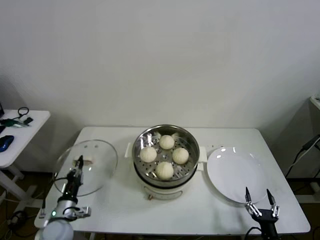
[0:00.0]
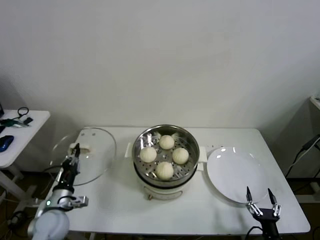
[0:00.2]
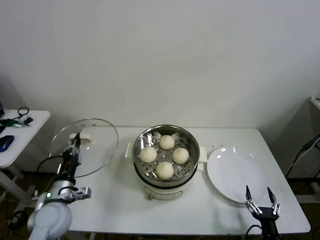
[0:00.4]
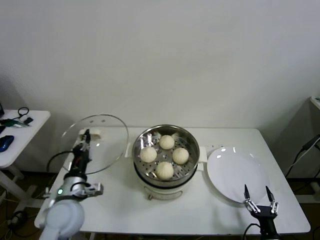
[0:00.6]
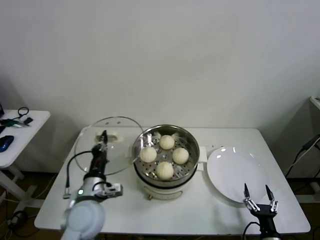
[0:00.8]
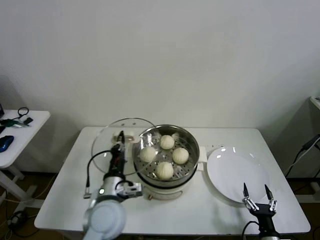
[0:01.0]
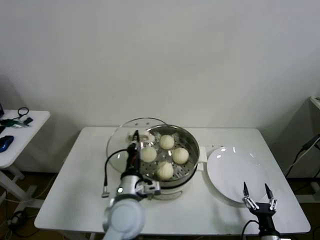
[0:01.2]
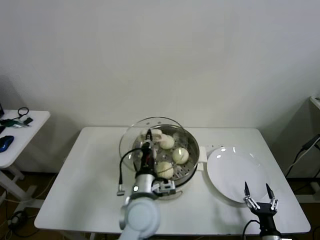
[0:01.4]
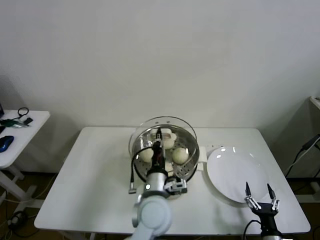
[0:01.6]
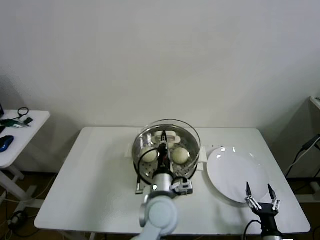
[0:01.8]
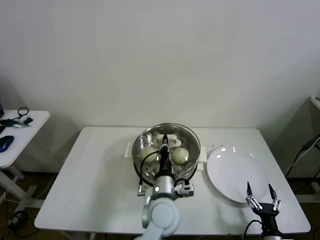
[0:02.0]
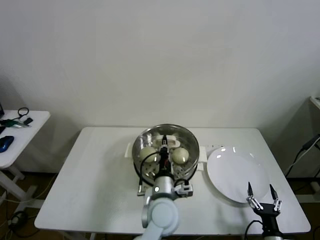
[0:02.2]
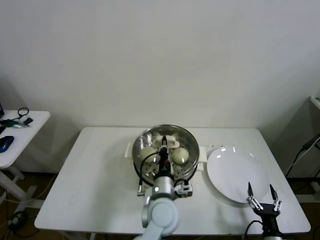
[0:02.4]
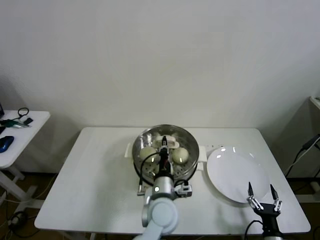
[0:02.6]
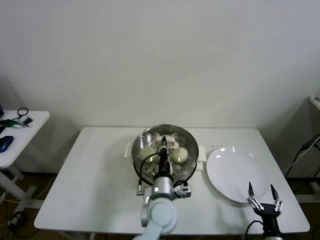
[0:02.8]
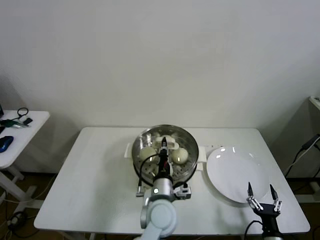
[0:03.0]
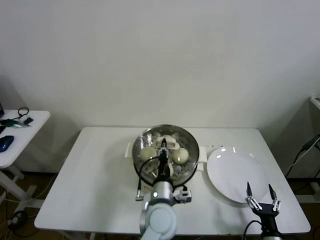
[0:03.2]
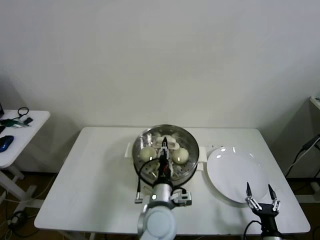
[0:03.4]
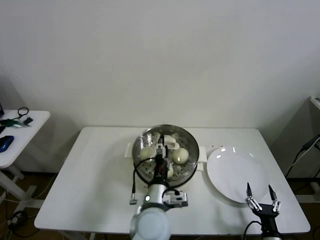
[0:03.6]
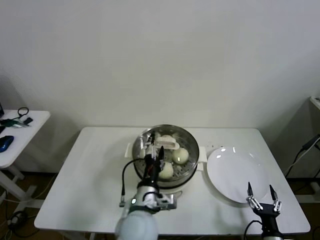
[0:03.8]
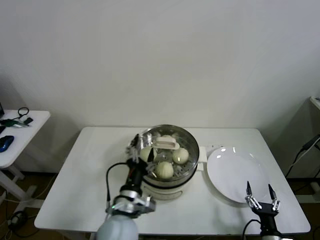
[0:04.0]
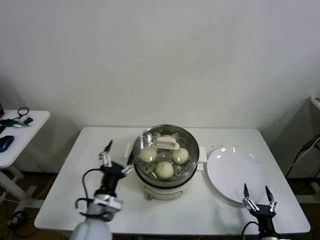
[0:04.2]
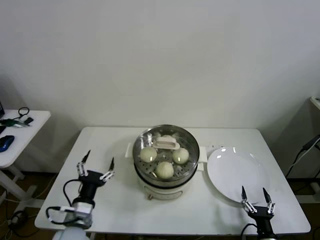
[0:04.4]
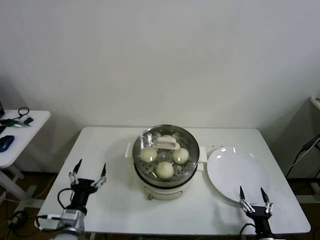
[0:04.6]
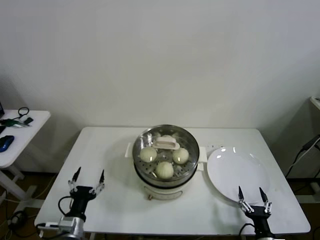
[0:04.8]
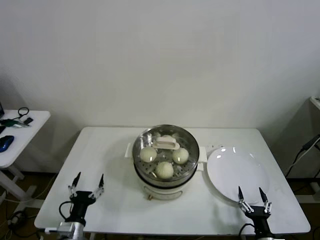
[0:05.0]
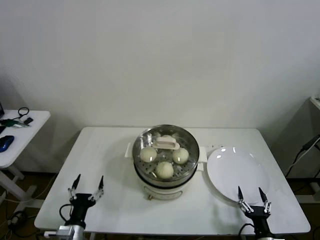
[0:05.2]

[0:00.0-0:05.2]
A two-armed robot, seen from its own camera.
Task of the whole recording: take steamed baozi put them in steamer then cover it.
Step, 0:00.0 to 0:03.6: Place the pot lid on the steamer with left gripper.
0:00.0 to 0:01.8: The left gripper travels to the right and upward by approximately 35 cm.
0:01.8 to 0:03.4: The left gripper opens.
0:03.4 to 0:05.2: The left gripper travels to the left by about 30 cm, and opens up.

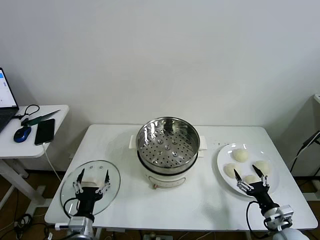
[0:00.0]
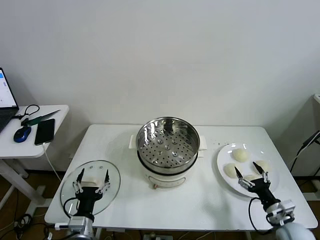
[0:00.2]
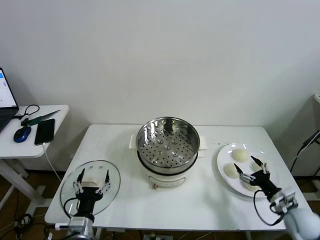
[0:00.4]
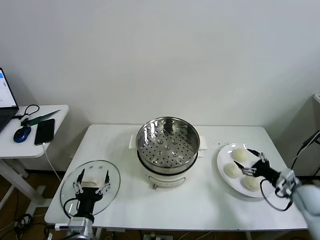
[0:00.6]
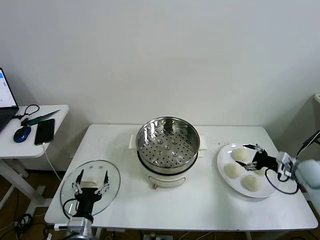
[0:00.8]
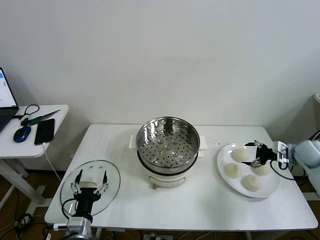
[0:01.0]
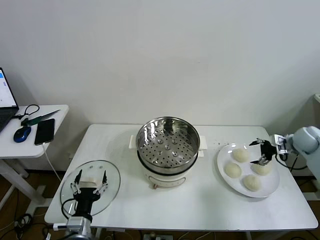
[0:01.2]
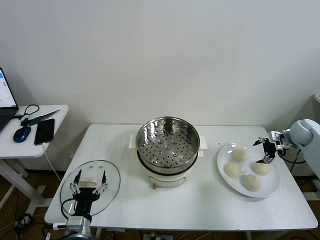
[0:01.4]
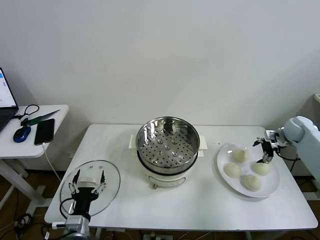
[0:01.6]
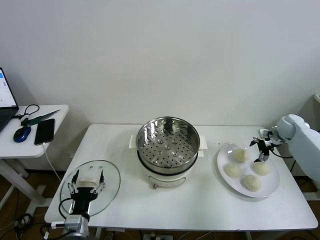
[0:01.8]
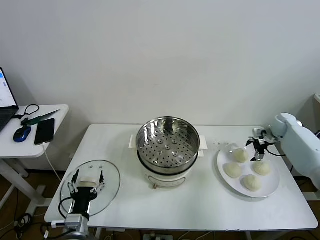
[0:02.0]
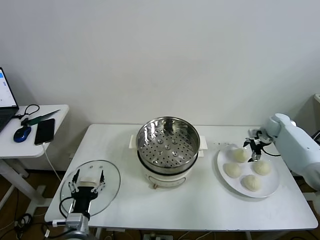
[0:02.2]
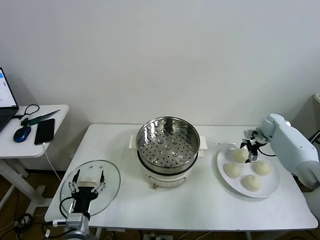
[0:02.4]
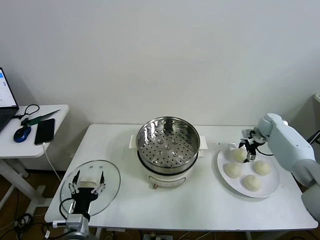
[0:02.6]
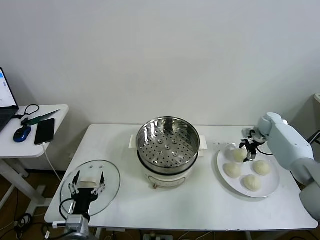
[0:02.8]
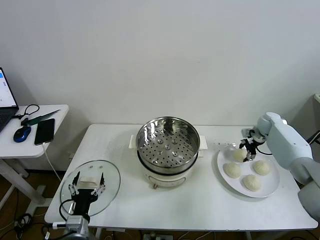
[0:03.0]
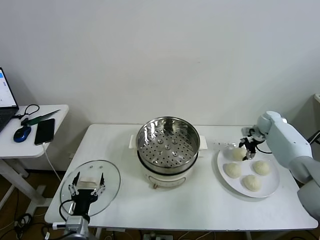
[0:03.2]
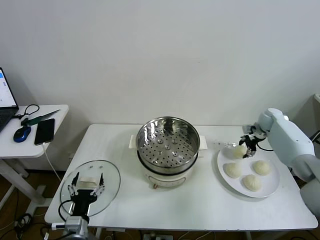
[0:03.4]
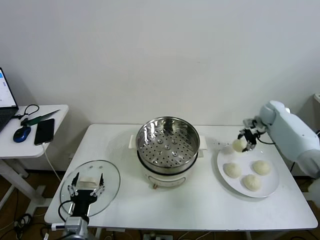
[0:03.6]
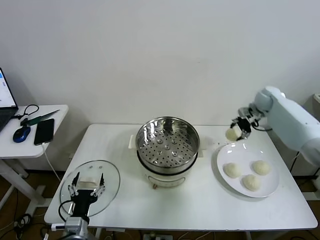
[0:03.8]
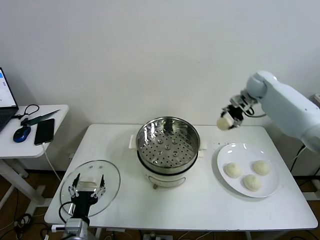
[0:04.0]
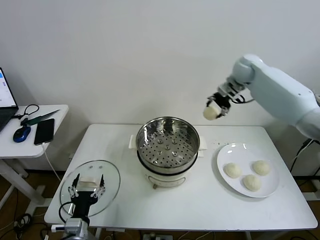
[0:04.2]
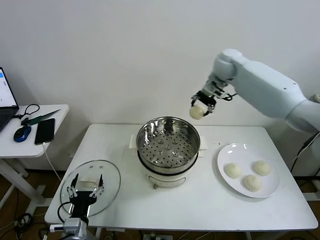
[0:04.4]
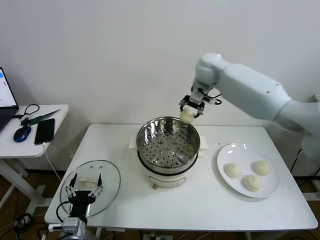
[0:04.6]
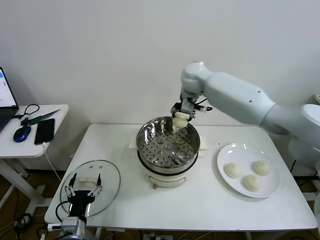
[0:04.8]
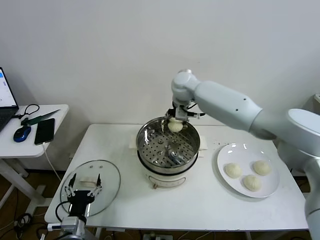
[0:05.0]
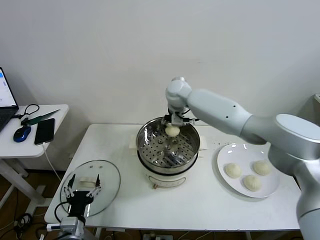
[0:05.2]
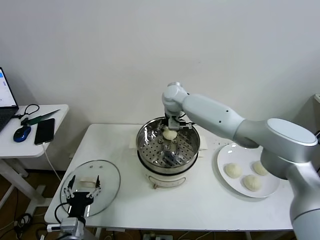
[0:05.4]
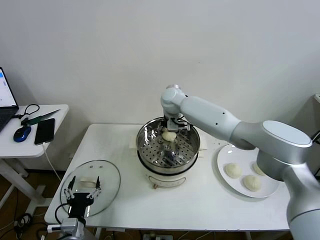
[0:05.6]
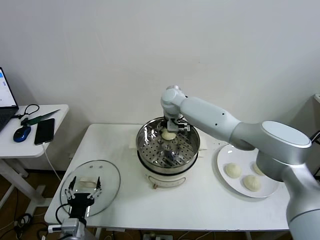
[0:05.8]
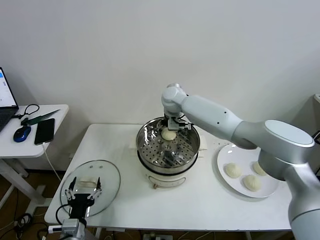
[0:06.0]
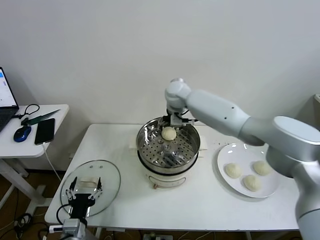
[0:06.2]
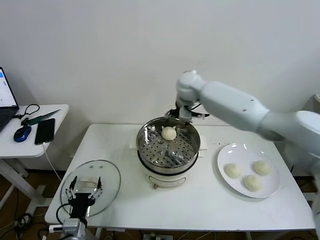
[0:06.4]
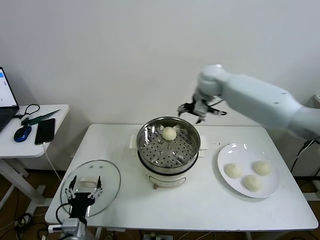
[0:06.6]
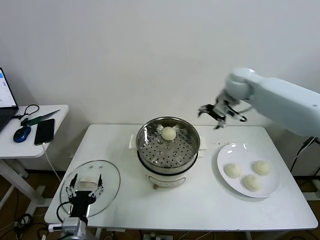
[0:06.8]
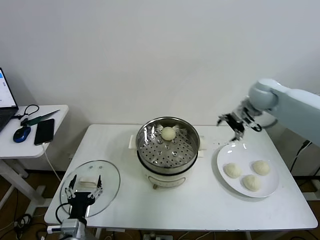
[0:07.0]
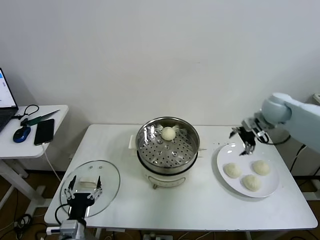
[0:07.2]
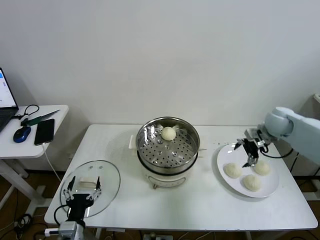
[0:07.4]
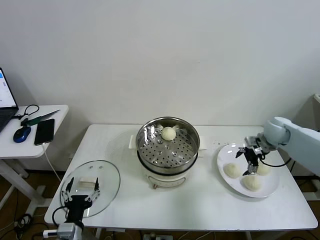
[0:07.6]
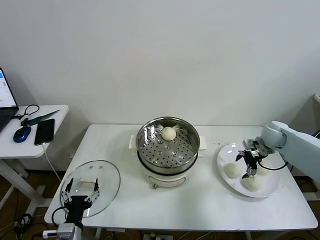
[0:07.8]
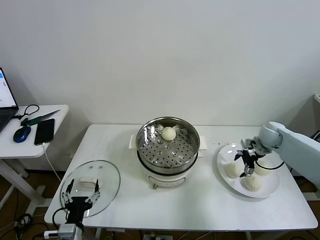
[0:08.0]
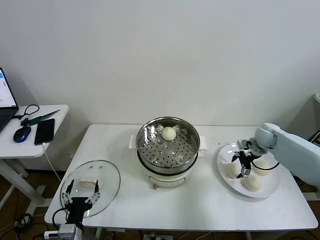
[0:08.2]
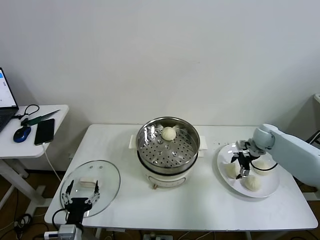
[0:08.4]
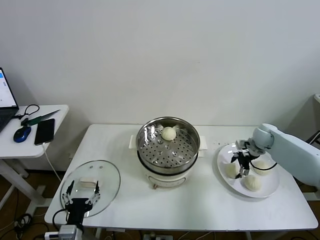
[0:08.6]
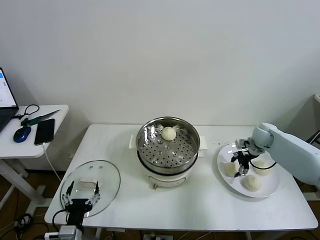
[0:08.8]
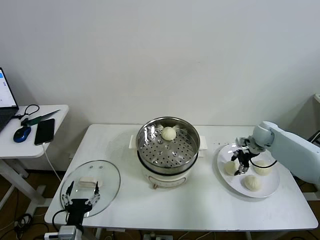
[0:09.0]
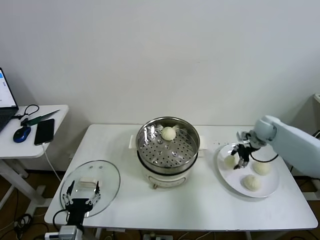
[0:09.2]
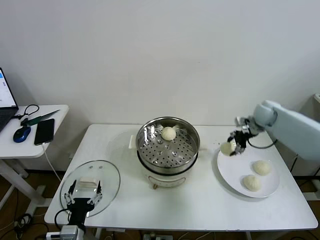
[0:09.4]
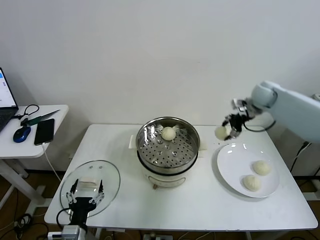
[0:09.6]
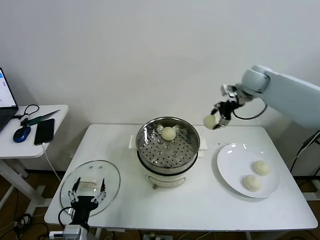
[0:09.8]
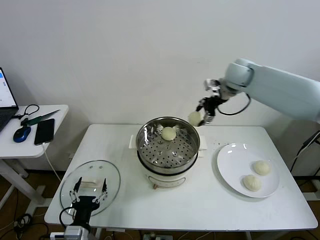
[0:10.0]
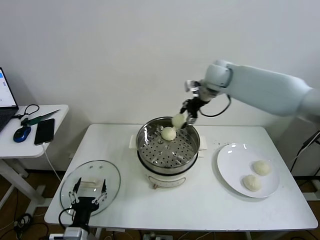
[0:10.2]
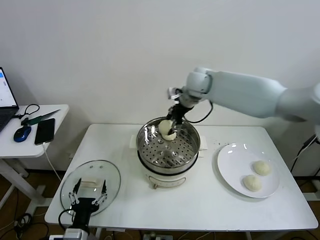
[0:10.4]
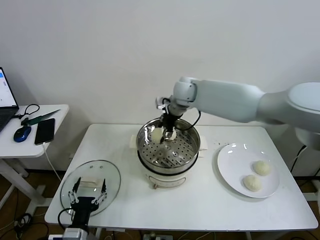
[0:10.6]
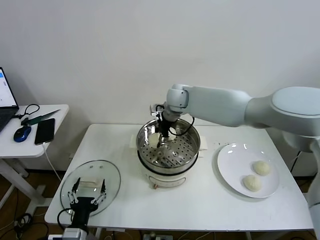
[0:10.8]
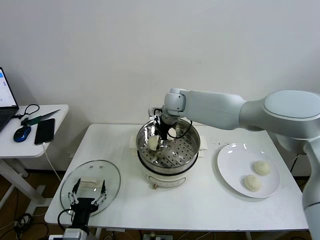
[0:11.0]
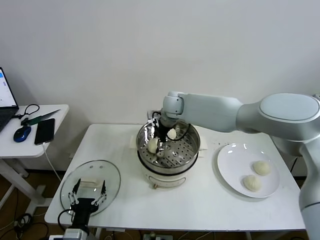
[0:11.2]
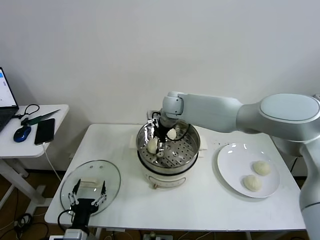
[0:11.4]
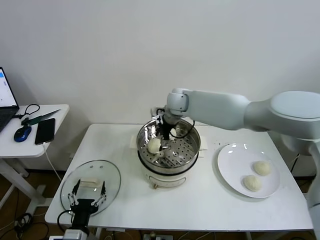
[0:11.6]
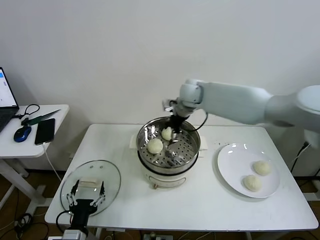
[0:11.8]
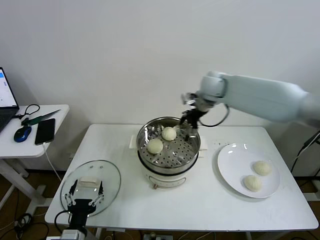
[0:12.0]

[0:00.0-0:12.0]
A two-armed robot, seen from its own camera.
Task of the whole recording: take steamed baozi put them in steamer then cover it.
Step, 0:00.0 to 0:03.0: Grasp the baozi in the plate with right gripper.
Step, 0:03.2 to 0:05.8: Place the baozi on the steamer with right gripper.
Step, 0:06.0 to 0:08.8: Grasp the baozi in the plate with right gripper.
Step, 0:09.0 to 0:11.4: Place the baozi on the steamer with right gripper.
0:01.6 to 0:03.0: The right gripper goes about 10 cm to the left and forward, and closes.
0:03.0 to 0:04.4: The right gripper travels to the left and upward by roughly 35 cm.
0:04.4 to 0:06.0: The right gripper goes some 20 cm to the left and downward, and opens its fingers.
0:06.0 to 0:07.6: The right gripper heads to the right, covering roughly 35 cm.
0:07.6 to 0:09.0: The right gripper moves roughly 5 cm, and closes up.
0:09.0 to 0:10.4: The right gripper is displaced to the left and upward by about 35 cm.
0:10.4 to 0:12.0: The right gripper goes about 10 cm to the right, and opens up.

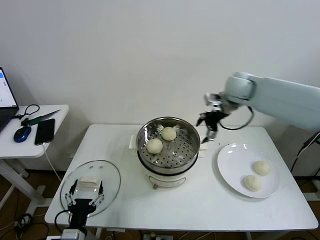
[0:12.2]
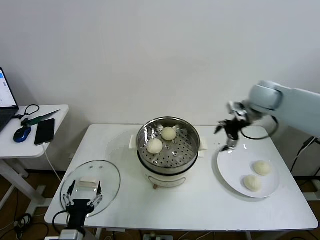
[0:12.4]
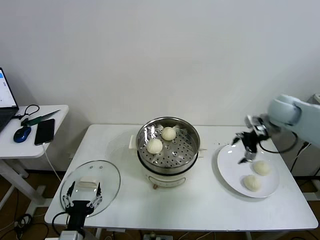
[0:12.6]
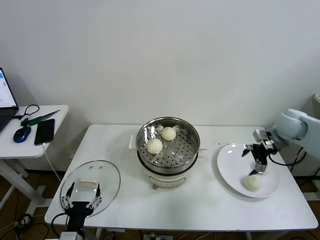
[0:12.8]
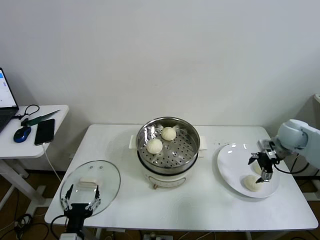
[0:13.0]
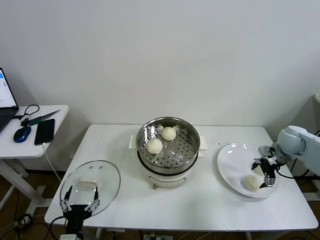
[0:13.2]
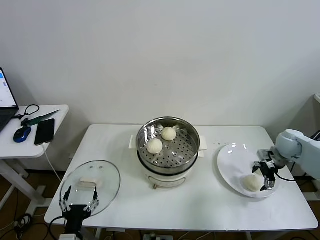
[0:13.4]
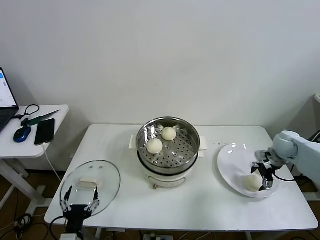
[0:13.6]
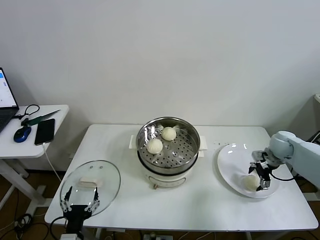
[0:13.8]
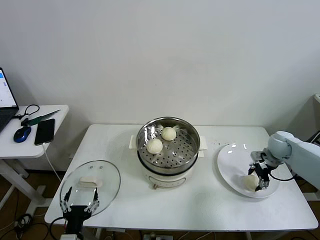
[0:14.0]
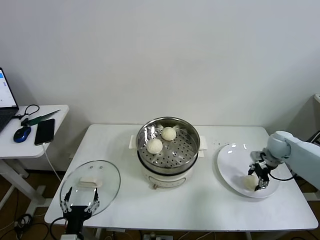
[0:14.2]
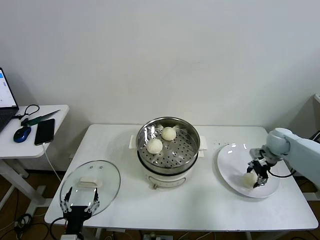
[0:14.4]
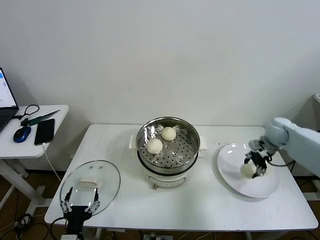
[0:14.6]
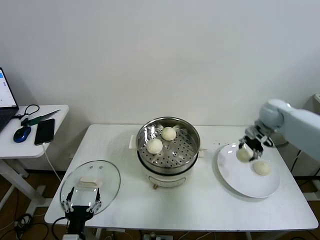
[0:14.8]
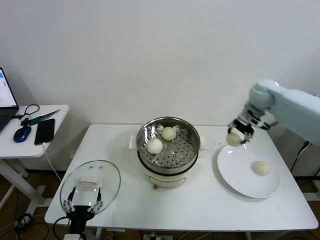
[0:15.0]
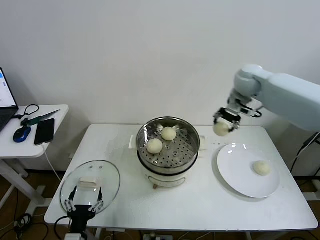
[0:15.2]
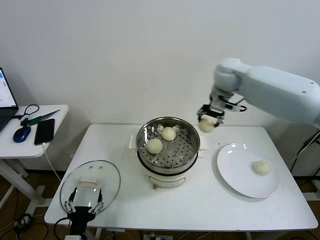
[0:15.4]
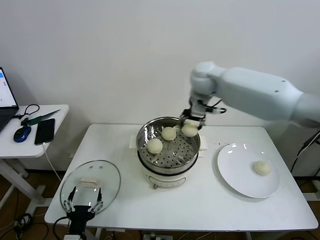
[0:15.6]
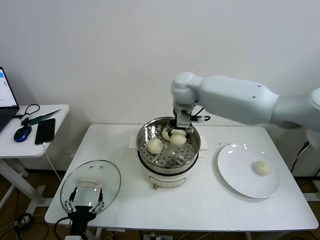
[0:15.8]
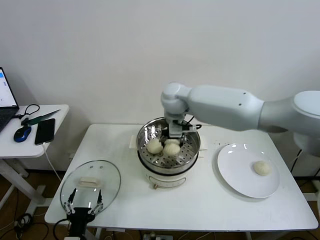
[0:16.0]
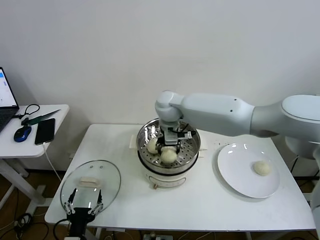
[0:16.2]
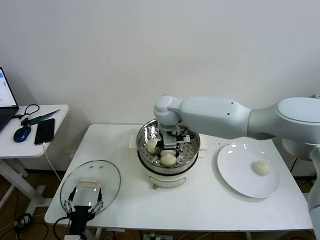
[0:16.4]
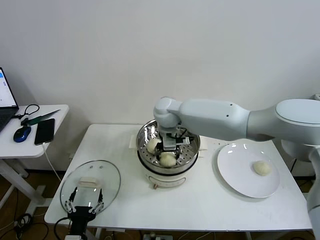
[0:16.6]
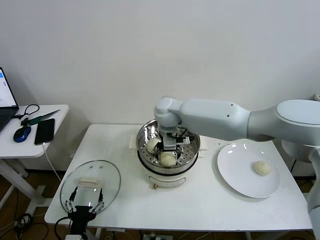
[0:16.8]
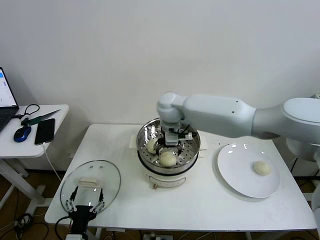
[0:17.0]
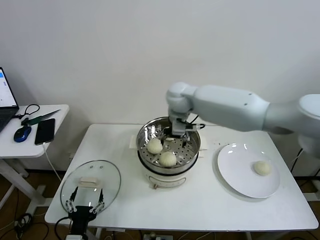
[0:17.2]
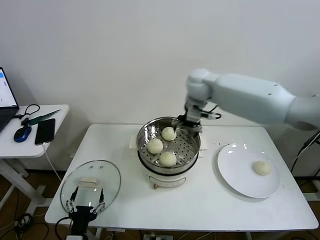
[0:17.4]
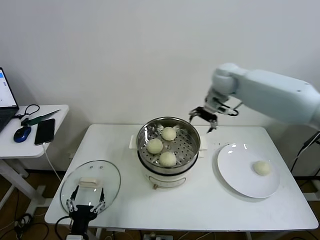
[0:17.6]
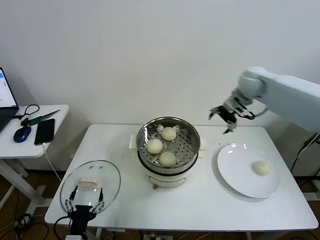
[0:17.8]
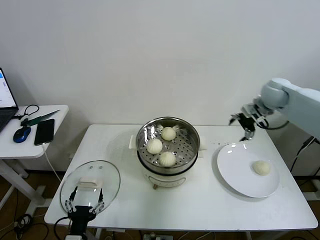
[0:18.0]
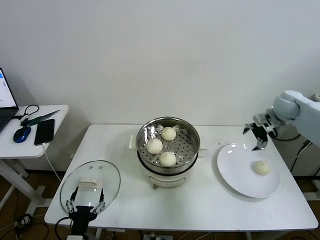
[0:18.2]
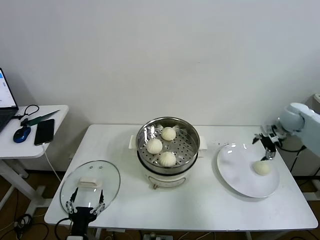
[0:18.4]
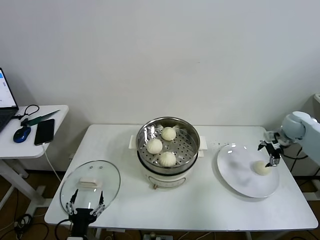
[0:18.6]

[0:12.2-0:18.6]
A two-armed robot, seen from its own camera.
Task of the whole recording: take steamed baozi put them in steamer then cover it.
Step, 0:12.2 to 0:14.2: Grasp the baozi in the plate with right gripper.
Step, 0:14.4 to 0:16.6: Place the baozi on the steamer with right gripper.
0:12.2 to 0:13.8: The right gripper shifts about 25 cm downward and to the right.
0:13.8 to 0:15.4: The right gripper goes approximately 35 cm to the left and upward, and closes.
0:15.4 to 0:17.0: The right gripper shifts roughly 20 cm to the left and downward, and opens up.
0:17.0 to 0:18.6: The right gripper travels to the right by about 50 cm.
